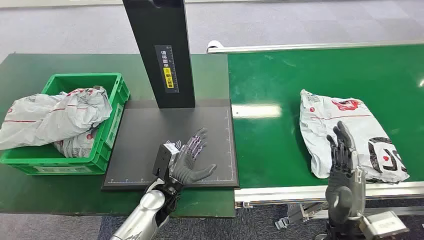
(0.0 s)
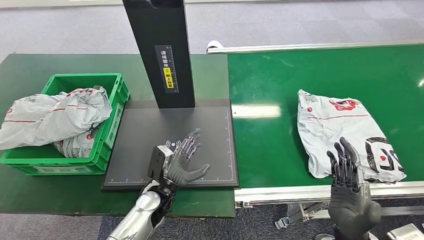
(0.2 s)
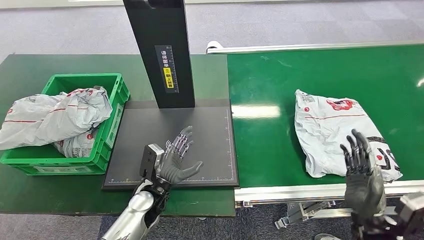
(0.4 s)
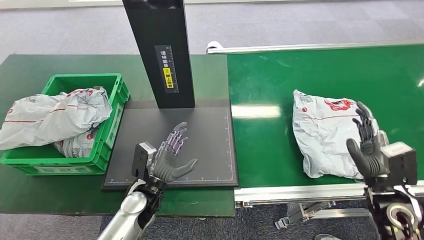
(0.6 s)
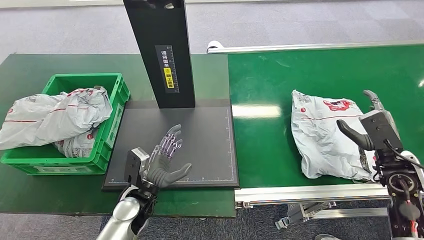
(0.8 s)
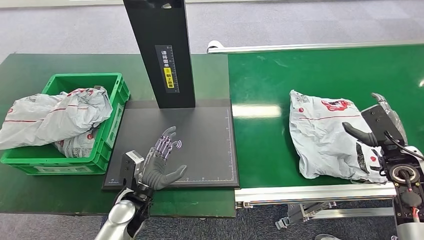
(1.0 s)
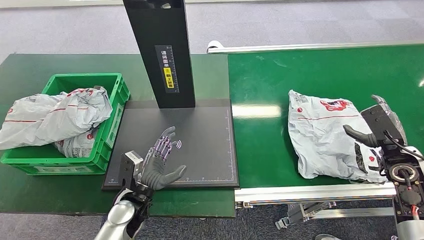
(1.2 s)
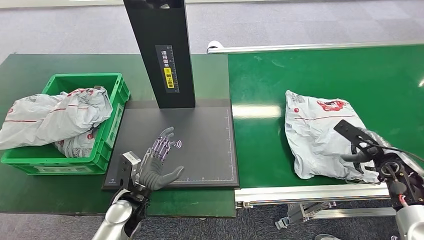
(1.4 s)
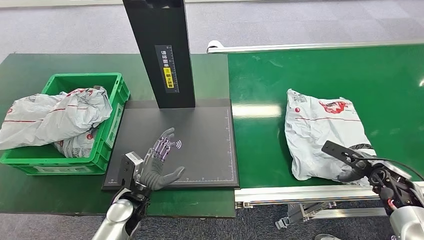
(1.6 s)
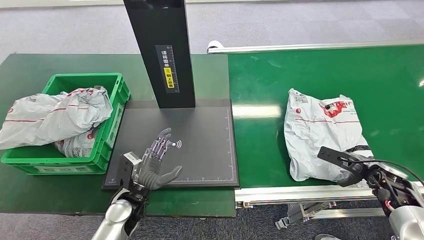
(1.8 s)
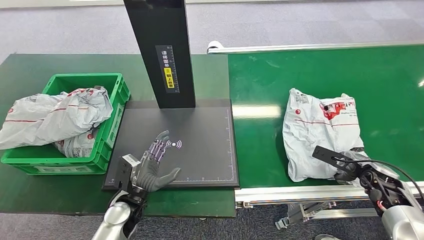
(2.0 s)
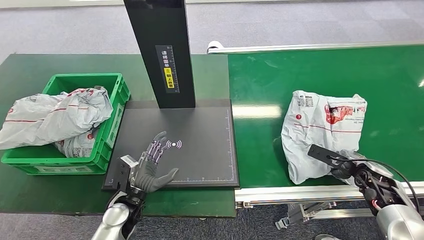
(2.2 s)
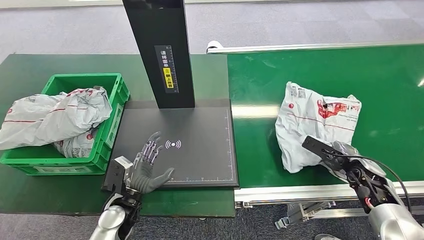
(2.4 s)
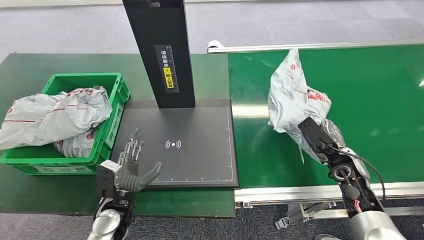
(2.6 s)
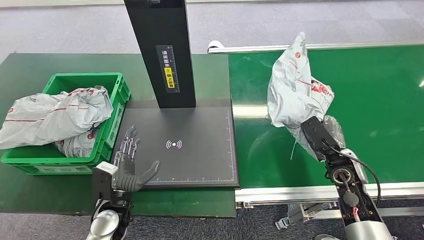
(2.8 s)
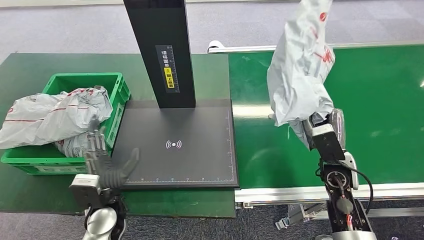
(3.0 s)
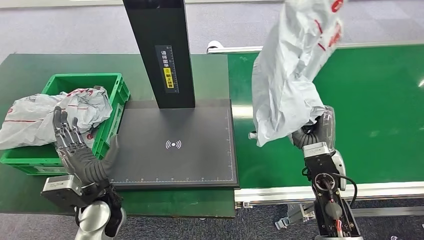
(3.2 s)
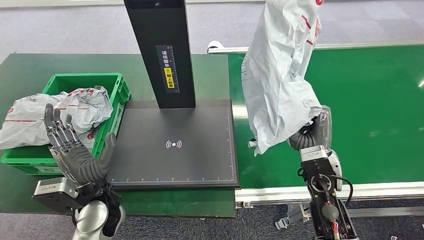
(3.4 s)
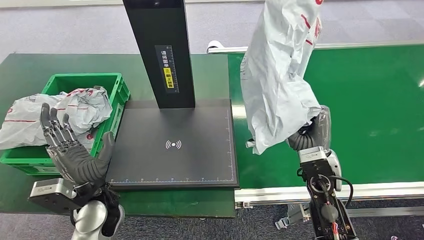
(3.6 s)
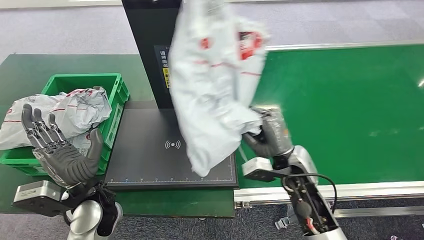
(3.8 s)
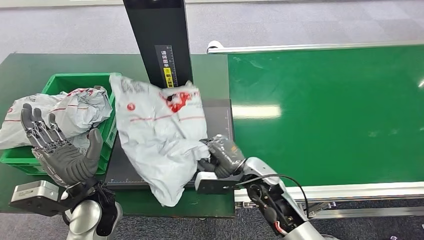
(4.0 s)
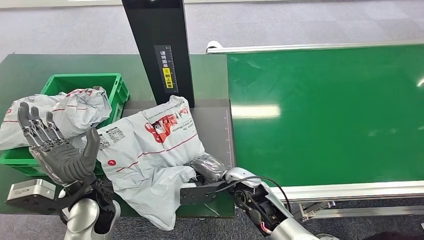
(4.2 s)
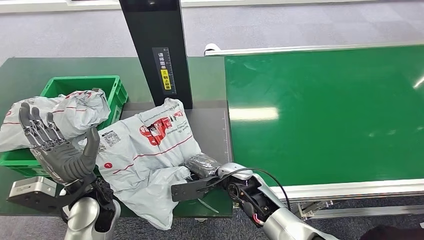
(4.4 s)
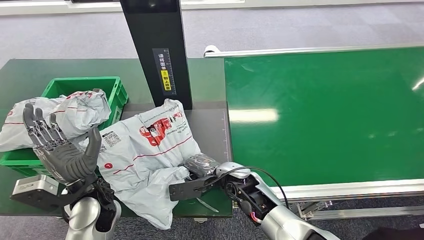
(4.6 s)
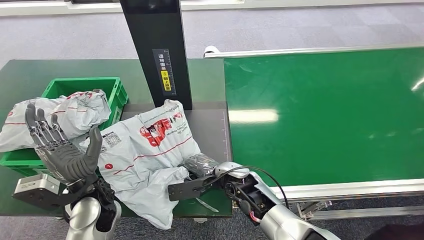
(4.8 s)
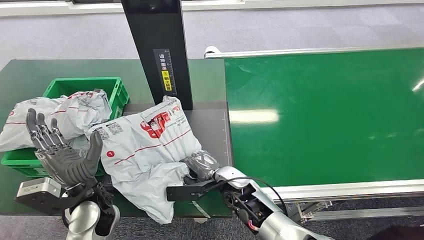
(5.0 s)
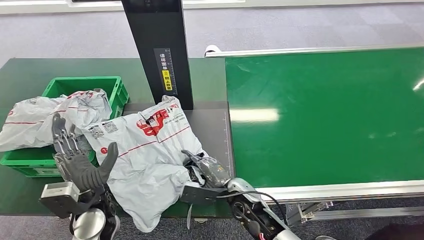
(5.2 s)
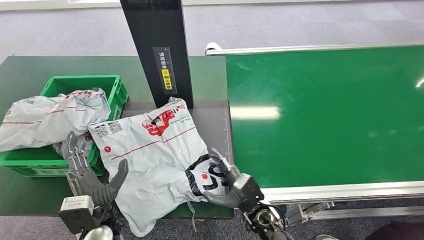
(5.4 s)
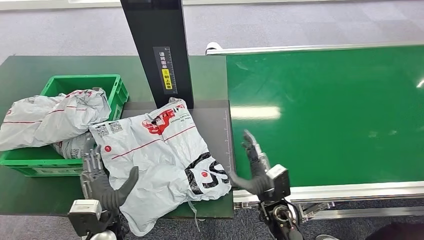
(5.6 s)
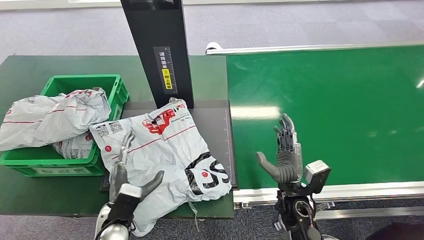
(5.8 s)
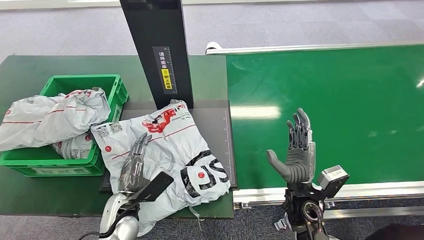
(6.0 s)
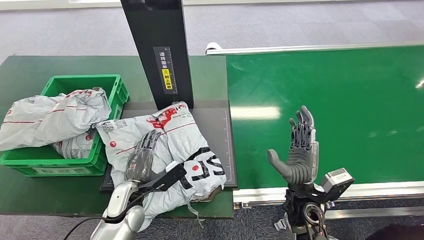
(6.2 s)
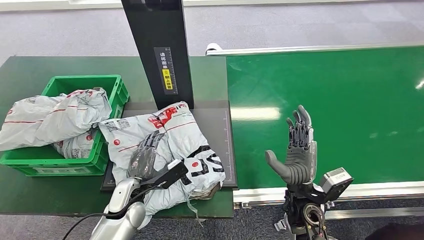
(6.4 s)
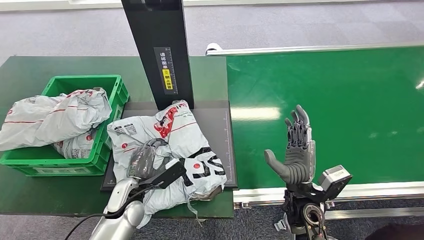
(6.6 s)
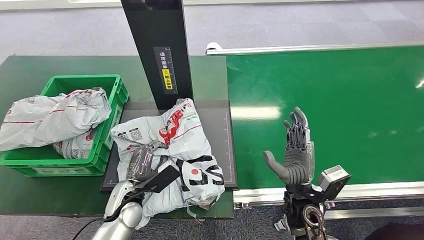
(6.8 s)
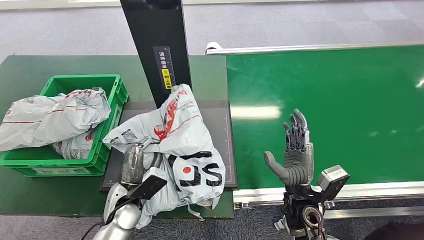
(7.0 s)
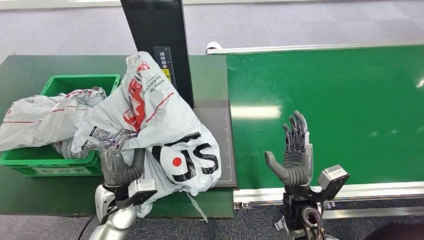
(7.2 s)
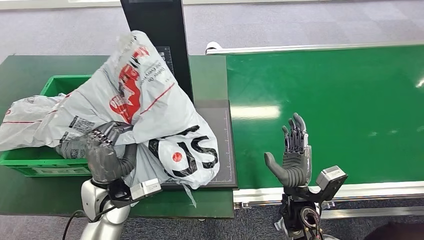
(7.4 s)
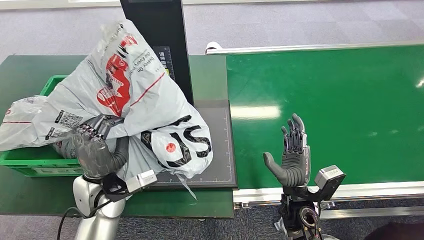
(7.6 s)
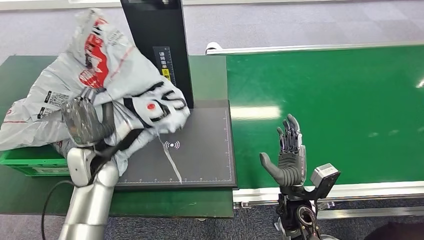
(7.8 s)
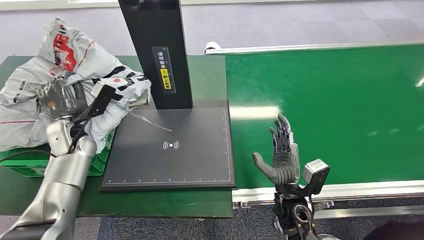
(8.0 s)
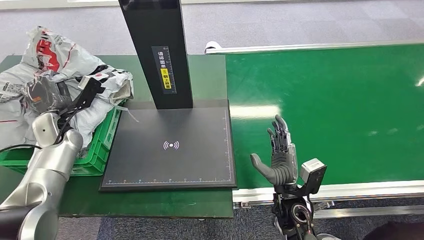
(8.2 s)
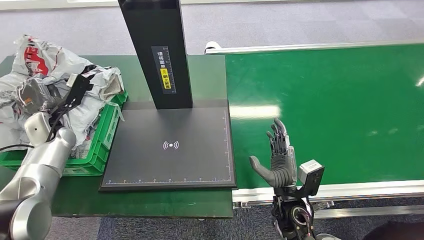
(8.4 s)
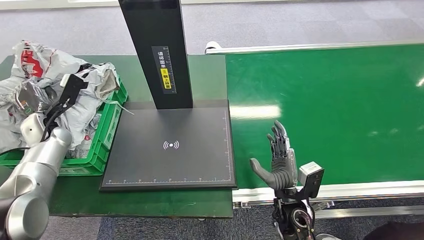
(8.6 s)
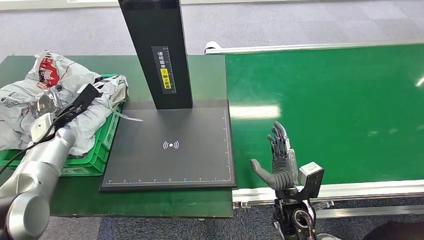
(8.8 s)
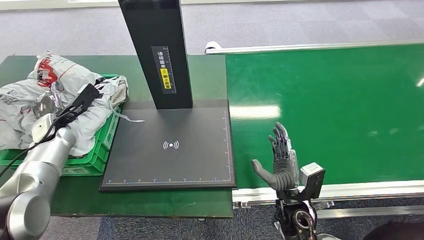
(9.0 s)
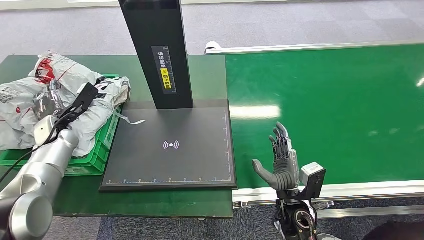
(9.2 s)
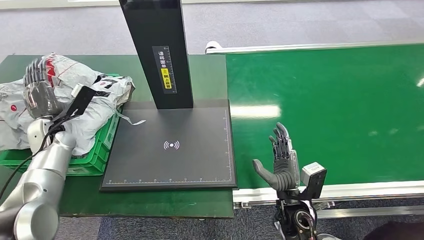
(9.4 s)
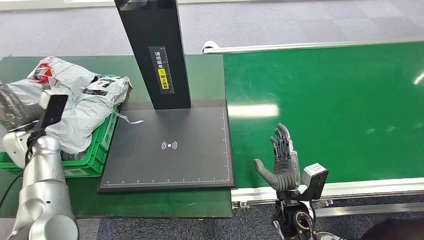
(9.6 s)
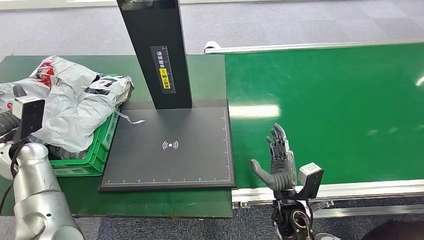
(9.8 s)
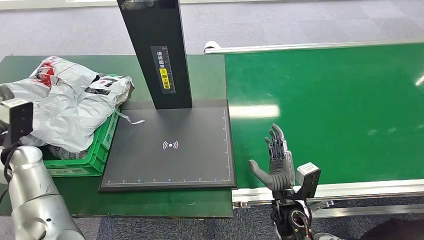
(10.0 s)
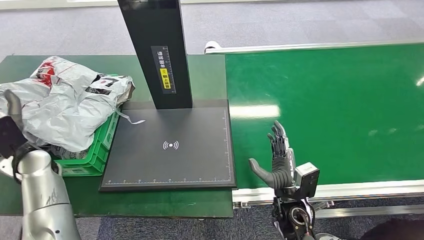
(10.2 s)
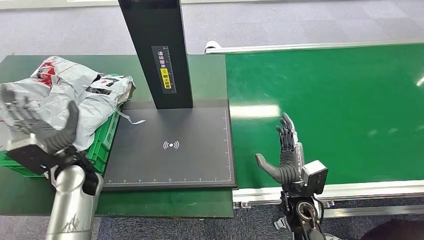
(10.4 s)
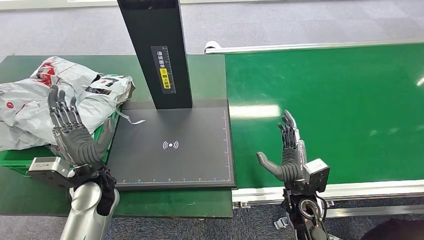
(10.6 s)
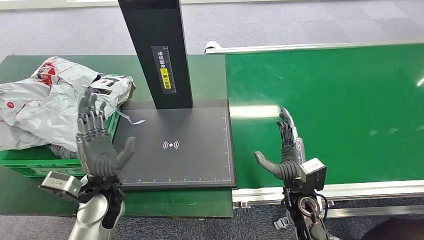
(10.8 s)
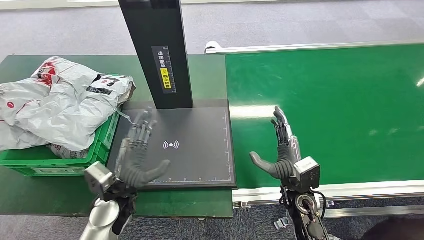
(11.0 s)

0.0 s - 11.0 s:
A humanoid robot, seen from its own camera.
Step, 0.0 s - 3.0 s: Pick up the package from the conveyor belt.
Step, 3.4 s - 5.2 s: Place the package onto the inbound machine.
Step, 5.4 s - 7.6 s: Pick up the package from the inbound machine.
Step, 7.8 s - 11.0 s: Place the package into the parcel locker.
9.4 s - 11.0 s: The left hand goes roughly 25 cm to the right and backward.
